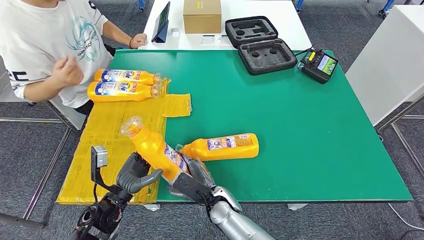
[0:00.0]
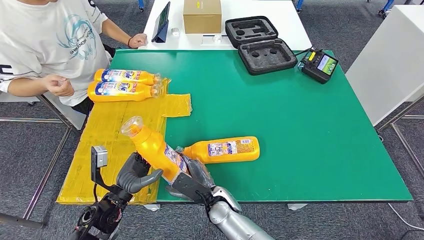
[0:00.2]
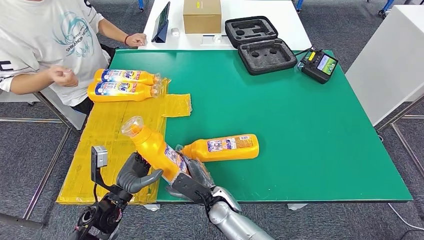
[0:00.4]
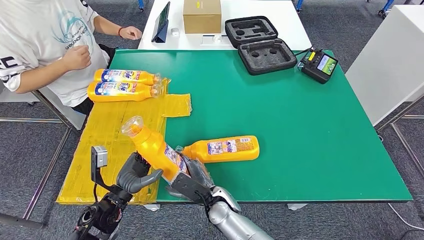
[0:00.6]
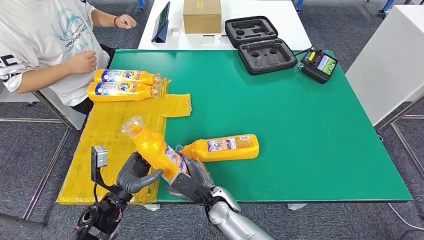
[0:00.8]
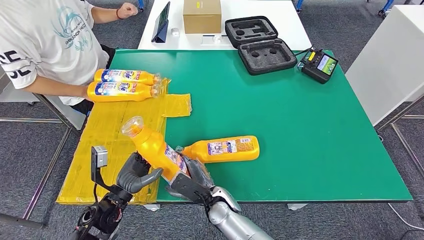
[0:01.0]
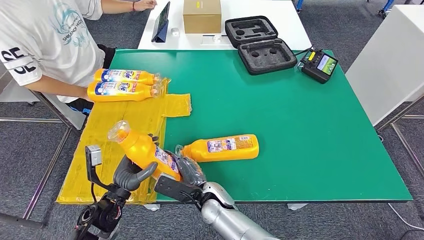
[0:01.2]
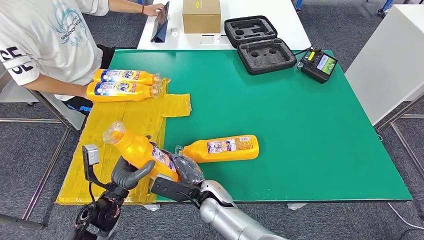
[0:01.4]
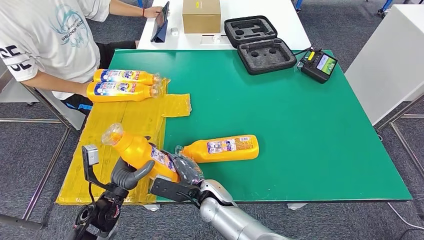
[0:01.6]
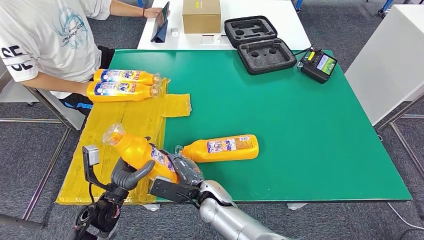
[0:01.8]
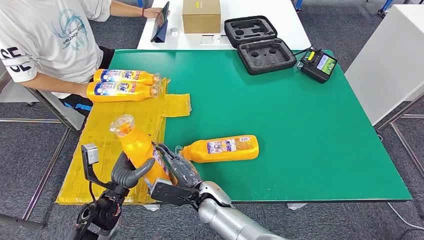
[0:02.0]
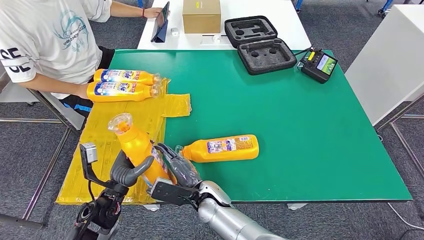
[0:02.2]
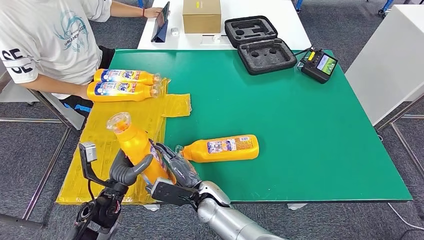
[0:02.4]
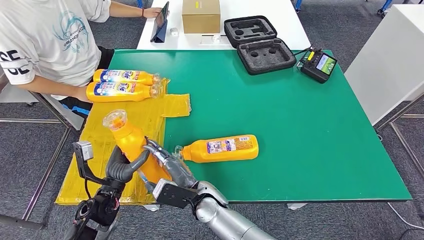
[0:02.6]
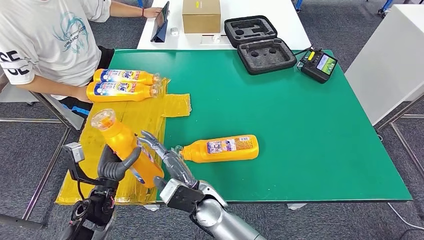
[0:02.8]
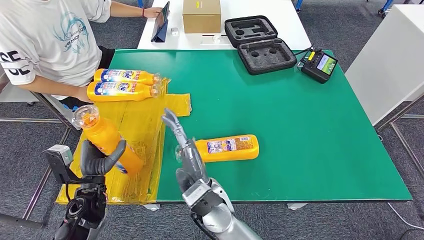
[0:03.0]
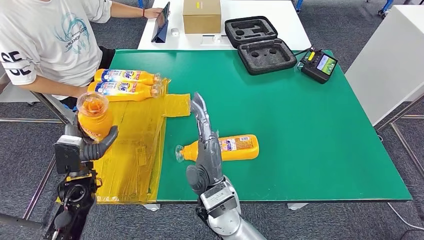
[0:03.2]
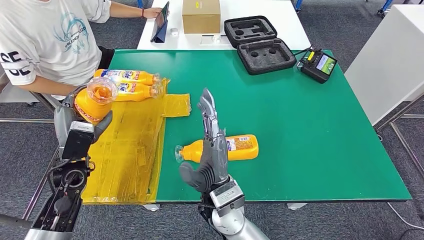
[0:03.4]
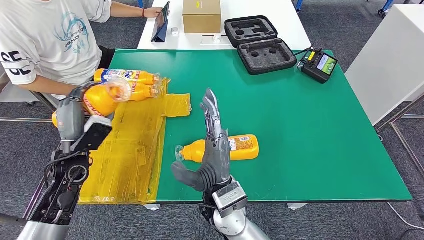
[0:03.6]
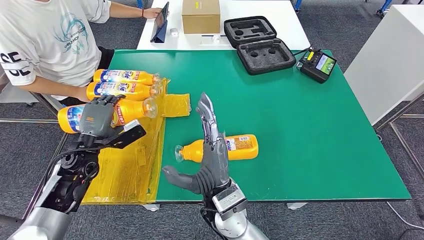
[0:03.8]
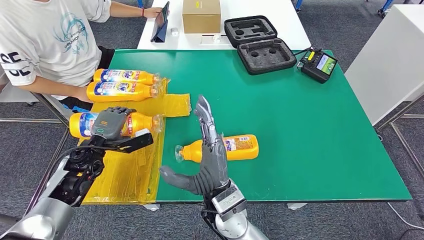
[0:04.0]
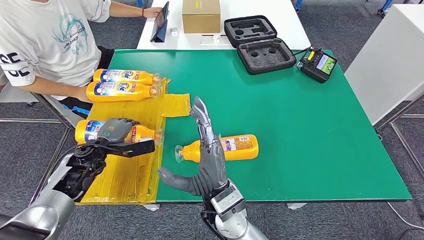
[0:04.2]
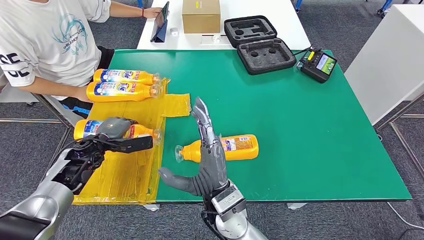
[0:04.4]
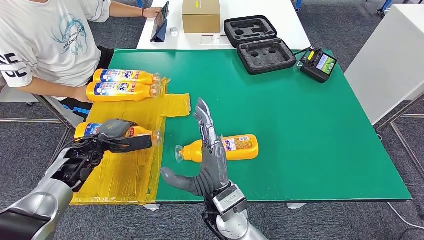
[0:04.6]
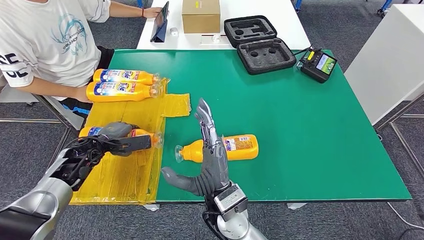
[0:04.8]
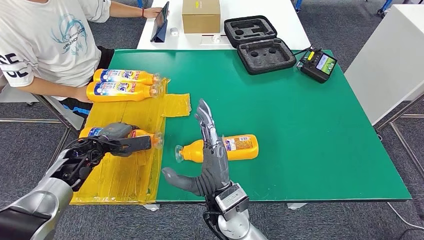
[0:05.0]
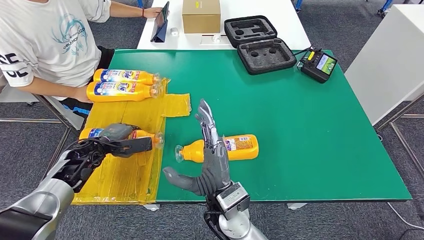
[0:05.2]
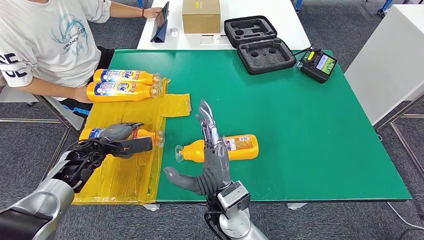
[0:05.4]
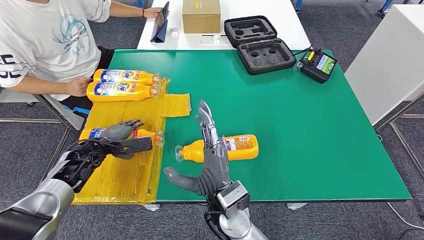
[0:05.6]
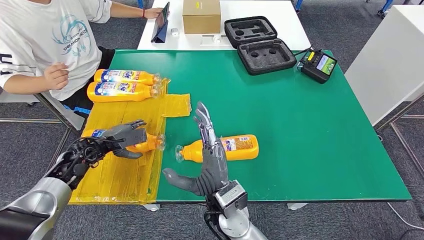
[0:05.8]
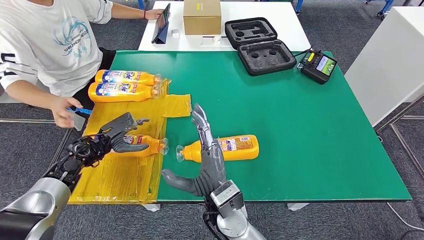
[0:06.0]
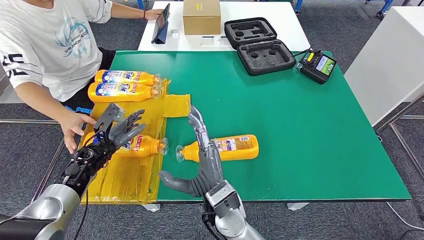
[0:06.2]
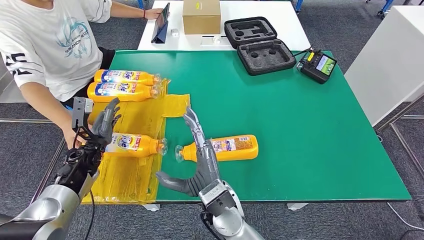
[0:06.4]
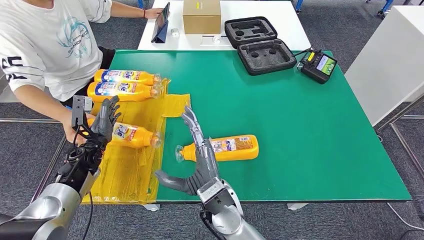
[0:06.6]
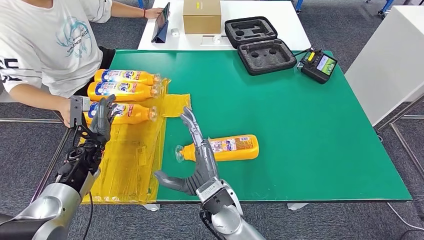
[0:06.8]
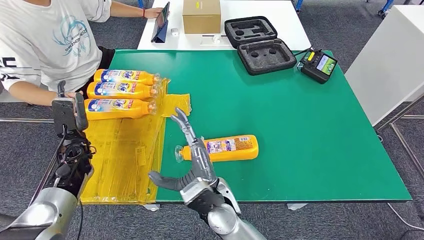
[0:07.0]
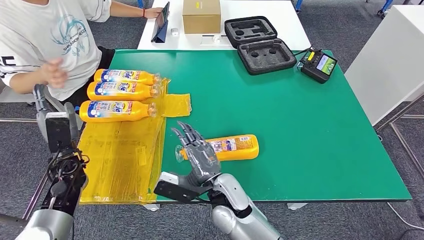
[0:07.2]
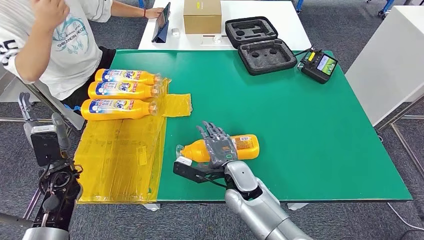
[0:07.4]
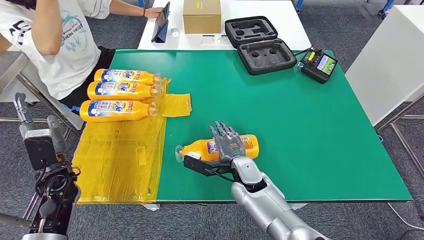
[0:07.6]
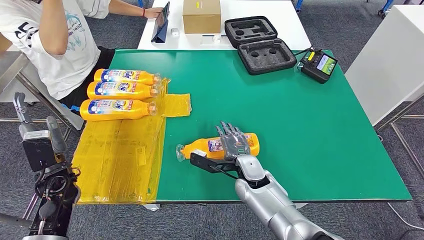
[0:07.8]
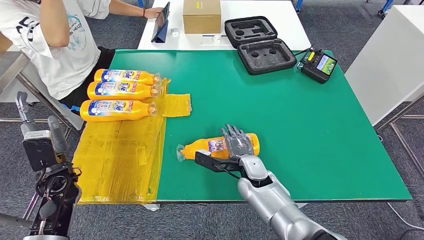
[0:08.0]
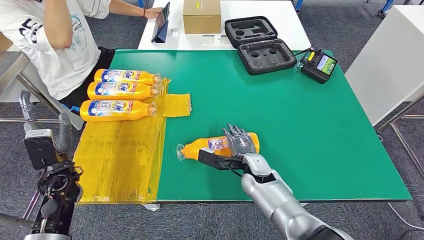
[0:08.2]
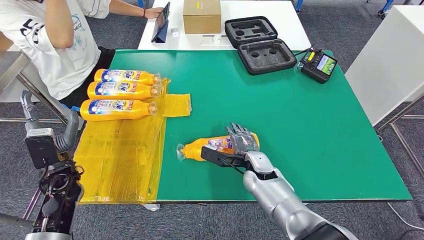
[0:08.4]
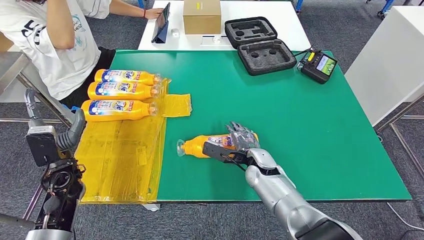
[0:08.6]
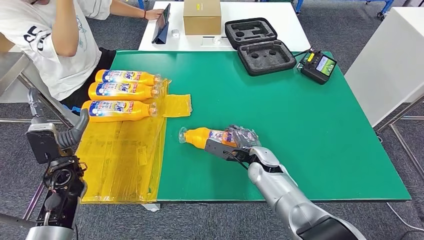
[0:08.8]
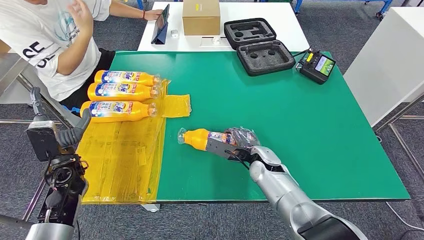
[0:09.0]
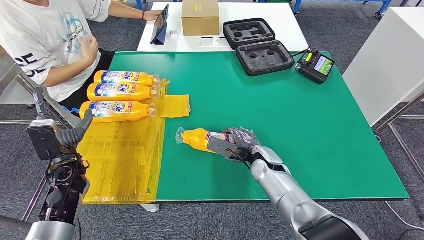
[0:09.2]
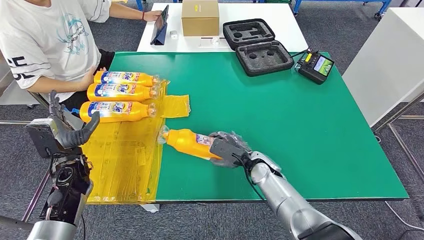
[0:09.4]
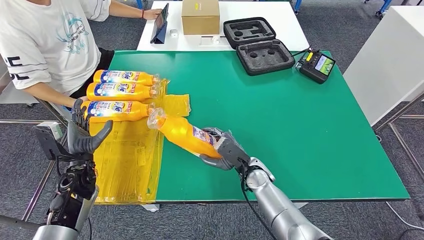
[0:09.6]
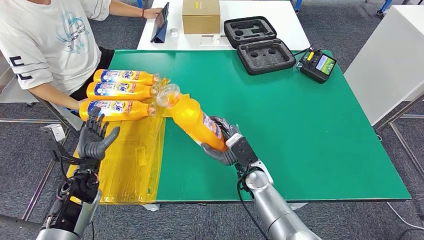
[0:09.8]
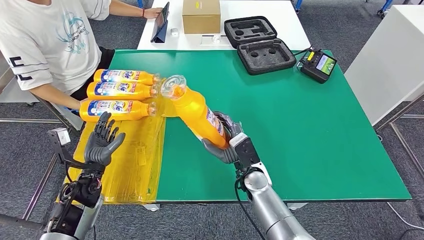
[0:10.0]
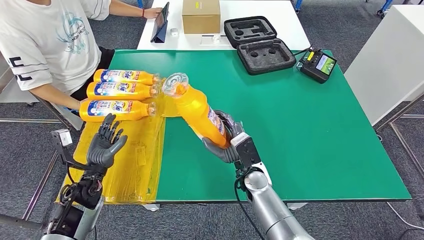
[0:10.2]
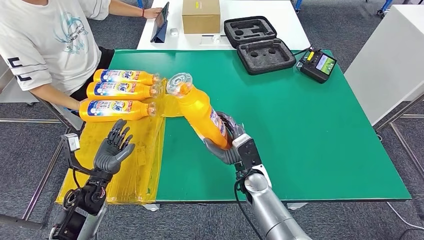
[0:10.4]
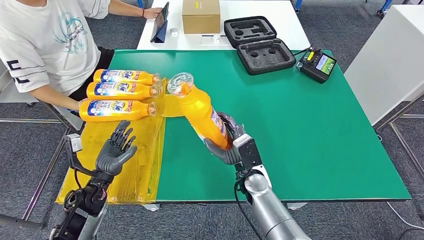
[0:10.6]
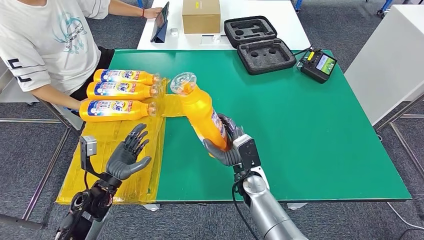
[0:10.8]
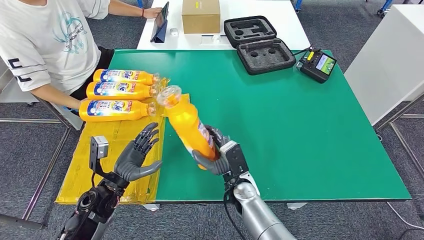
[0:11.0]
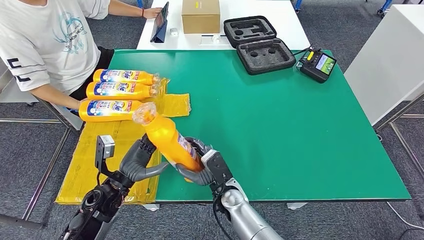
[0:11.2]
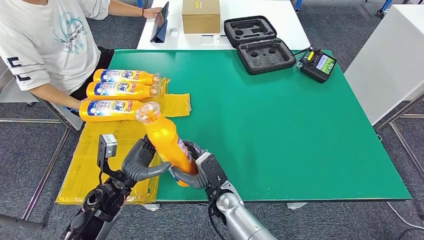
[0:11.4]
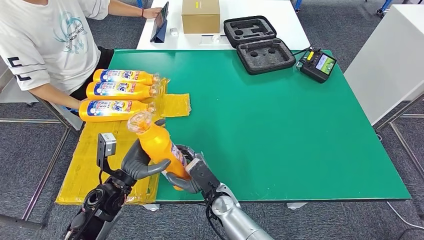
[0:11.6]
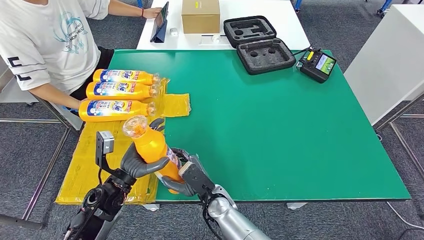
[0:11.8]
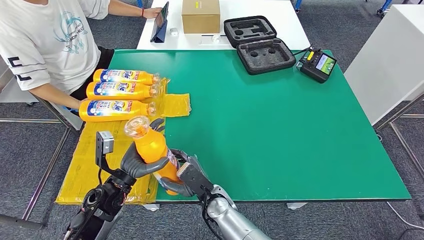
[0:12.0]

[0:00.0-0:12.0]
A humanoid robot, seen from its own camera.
Step, 0:00.0 to 0:06.6: Flip the bottle to face forward.
Step, 0:09.4 to 0:11.8: Pick up the bottle from the table.
0:00.0 to 0:01.6: There are only small adjustments of the hands.
0:01.6 to 0:03.0: The right hand travels upward by roughly 10 cm.
0:03.0 to 0:04.4: The left hand is displaced forward by about 15 cm.
0:10.4 to 0:12.0: The left hand goes about 10 cm to the right, while the right hand heads to the left and backward, covering approximately 15 cm.

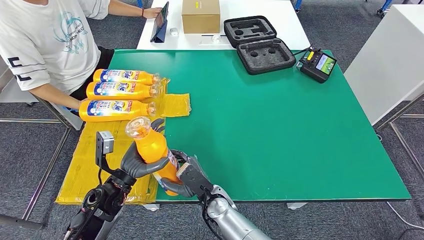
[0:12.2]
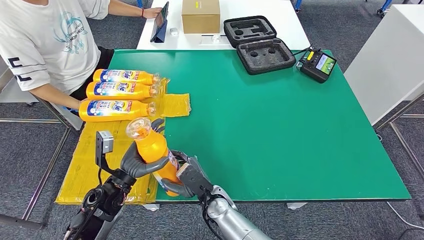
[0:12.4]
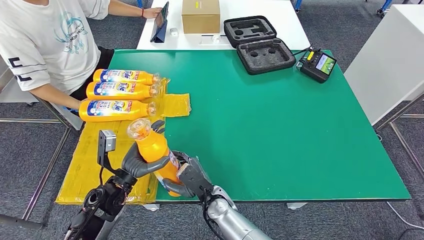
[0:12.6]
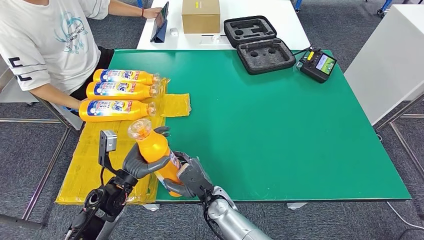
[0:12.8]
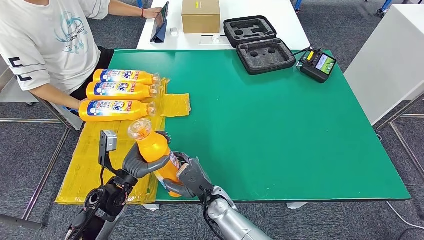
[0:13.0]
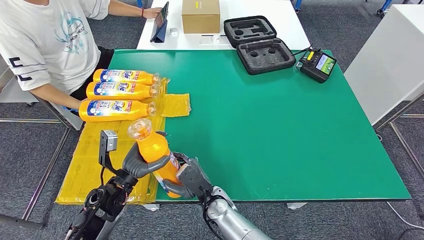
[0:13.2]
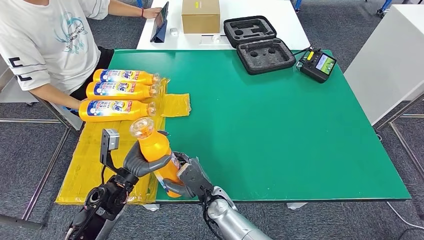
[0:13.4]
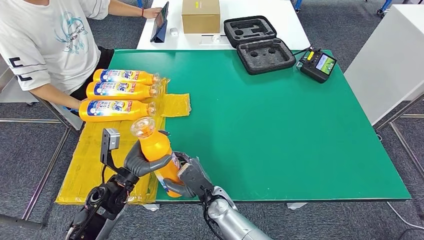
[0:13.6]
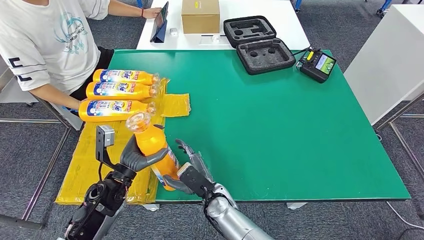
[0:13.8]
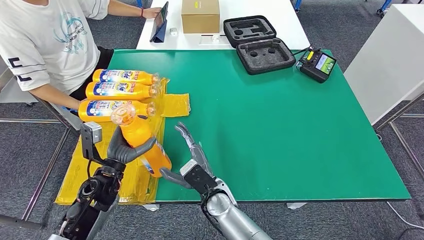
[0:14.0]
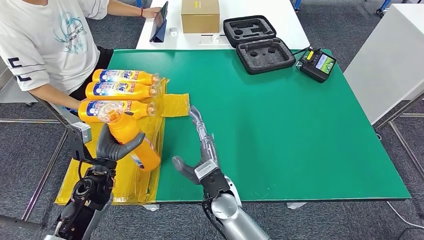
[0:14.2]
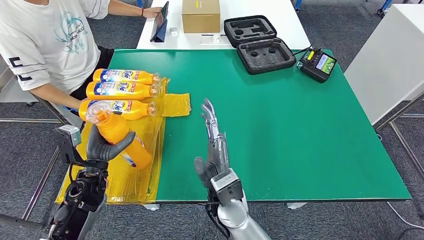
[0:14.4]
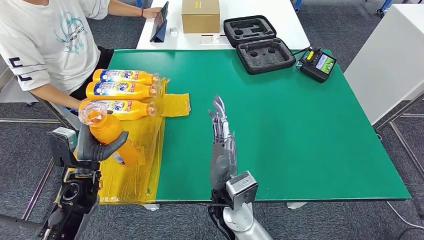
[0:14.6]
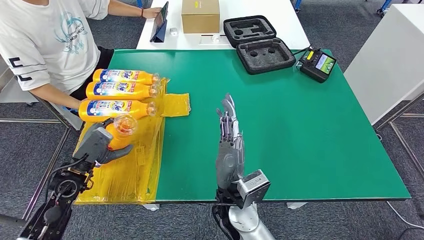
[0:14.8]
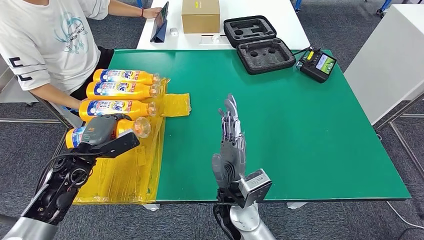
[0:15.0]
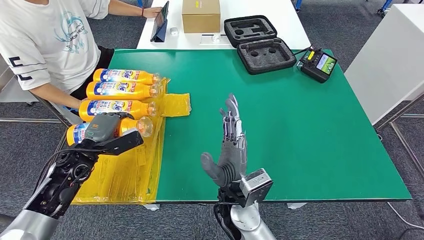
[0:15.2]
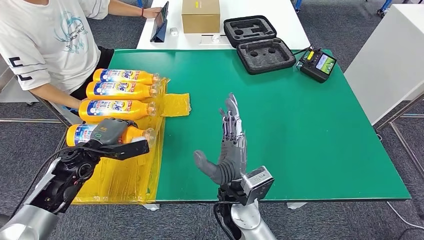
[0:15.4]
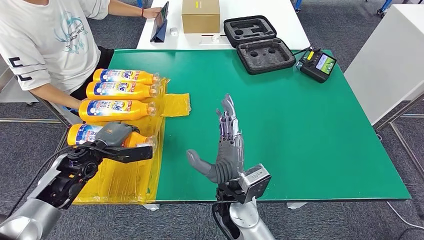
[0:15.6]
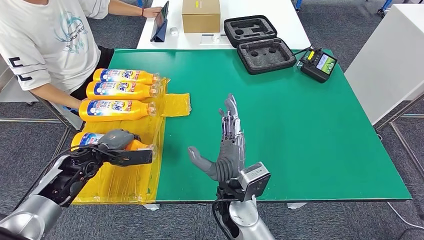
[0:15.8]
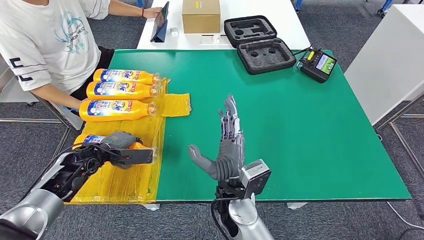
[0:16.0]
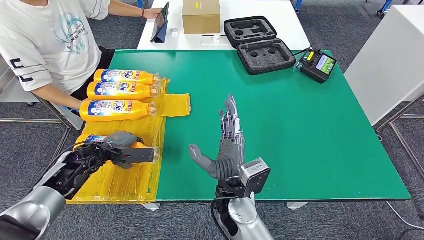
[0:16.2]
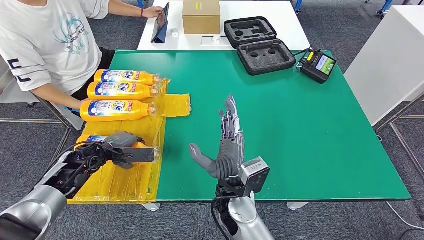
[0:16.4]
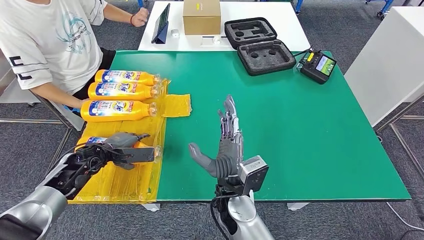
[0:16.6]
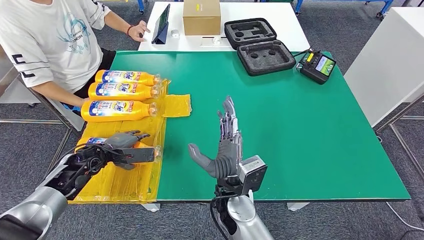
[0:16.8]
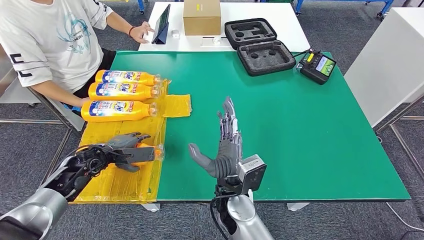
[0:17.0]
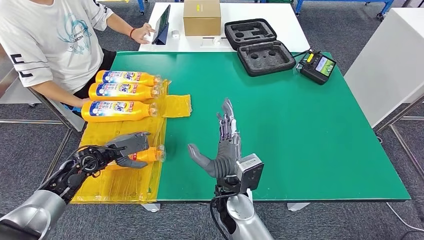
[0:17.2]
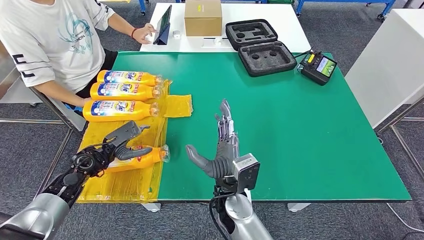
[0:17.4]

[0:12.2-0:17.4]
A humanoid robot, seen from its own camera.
Step, 0:12.8 to 0:17.4: Flip the bottle to face forward.
0:12.2 to 0:14.0: The hands make only small movements.
0:14.0 to 0:15.6: The right hand shifts about 10 cm upward. The left hand travels to the left and forward by some 10 cm.
